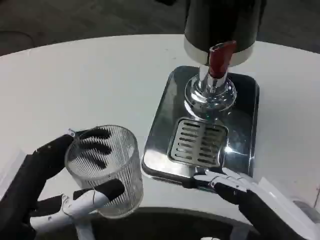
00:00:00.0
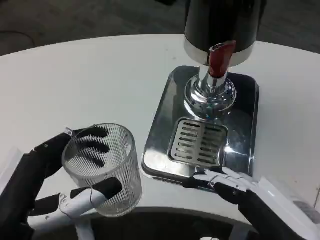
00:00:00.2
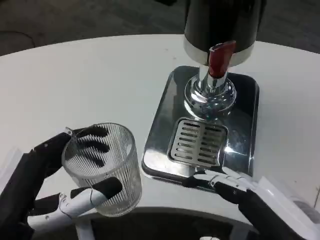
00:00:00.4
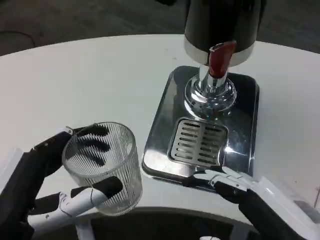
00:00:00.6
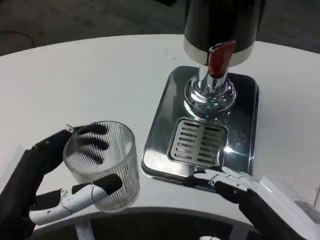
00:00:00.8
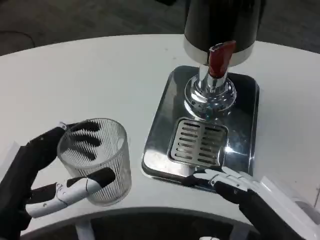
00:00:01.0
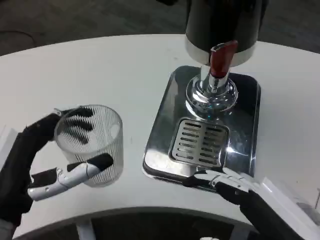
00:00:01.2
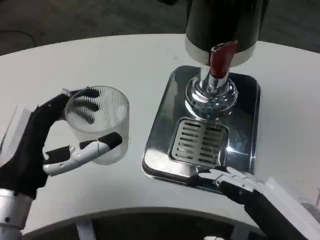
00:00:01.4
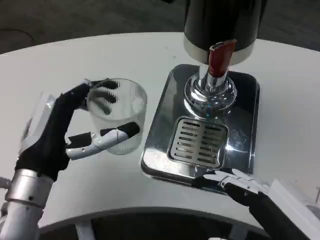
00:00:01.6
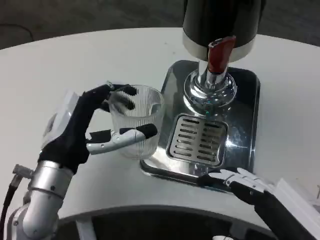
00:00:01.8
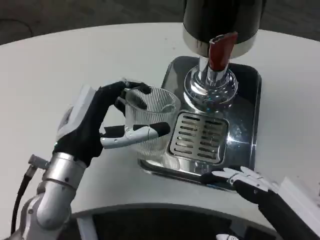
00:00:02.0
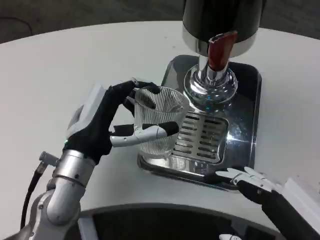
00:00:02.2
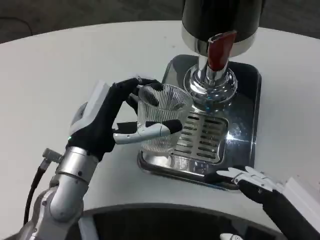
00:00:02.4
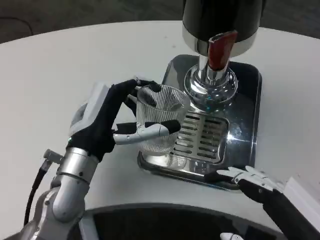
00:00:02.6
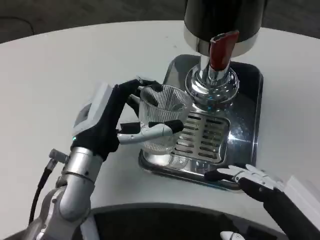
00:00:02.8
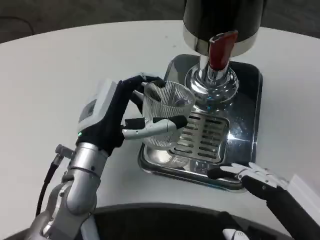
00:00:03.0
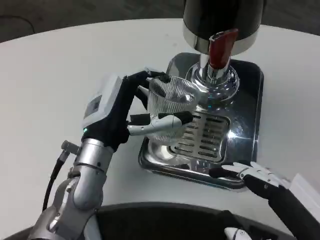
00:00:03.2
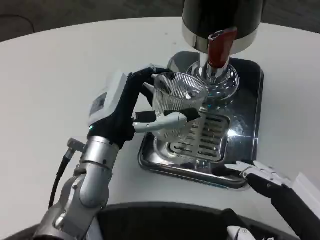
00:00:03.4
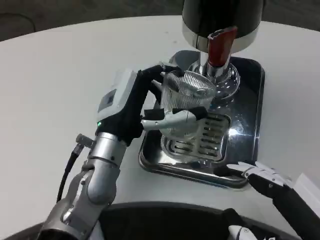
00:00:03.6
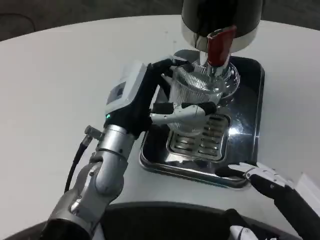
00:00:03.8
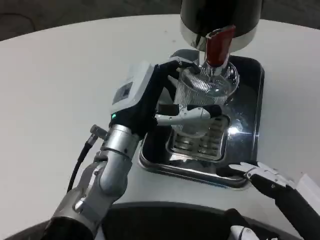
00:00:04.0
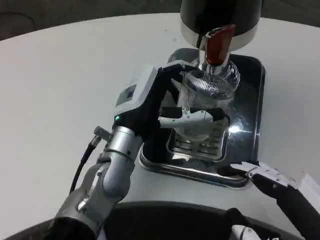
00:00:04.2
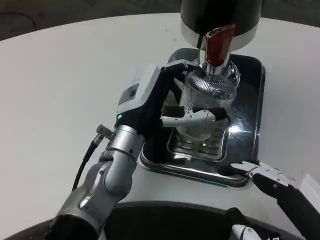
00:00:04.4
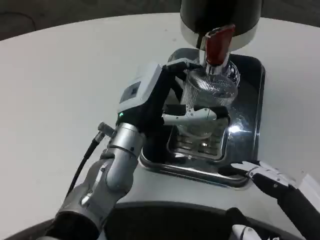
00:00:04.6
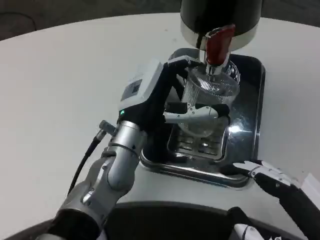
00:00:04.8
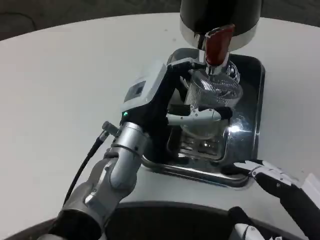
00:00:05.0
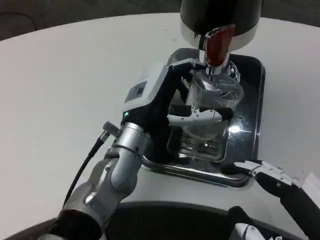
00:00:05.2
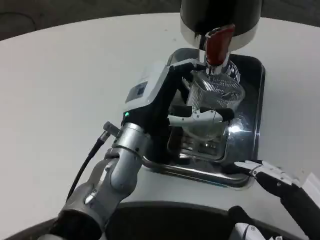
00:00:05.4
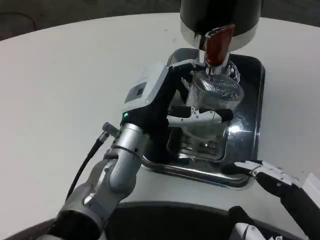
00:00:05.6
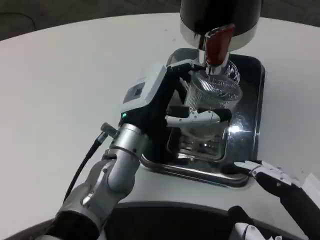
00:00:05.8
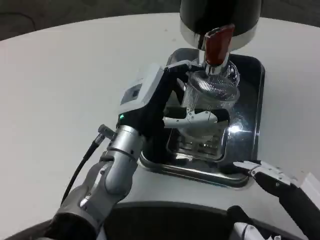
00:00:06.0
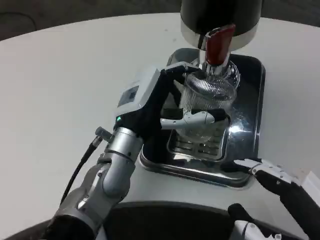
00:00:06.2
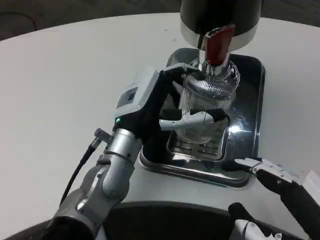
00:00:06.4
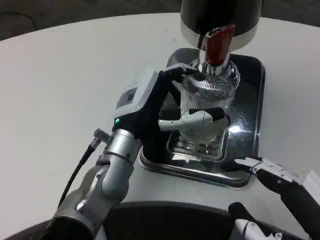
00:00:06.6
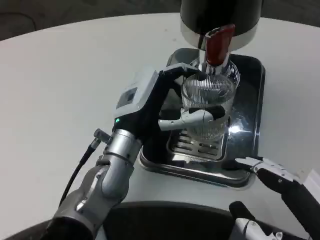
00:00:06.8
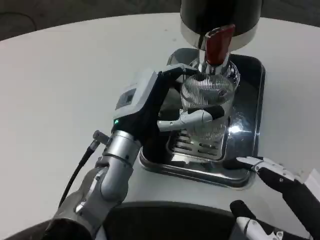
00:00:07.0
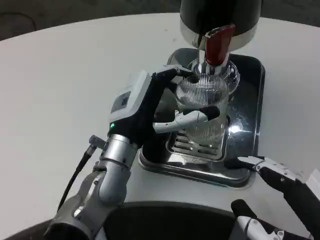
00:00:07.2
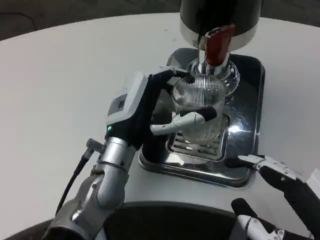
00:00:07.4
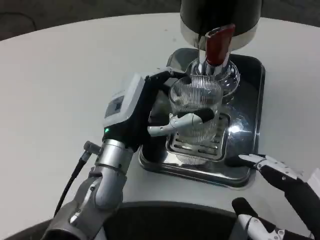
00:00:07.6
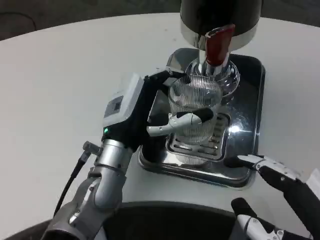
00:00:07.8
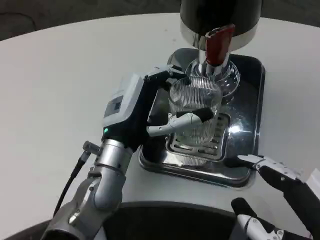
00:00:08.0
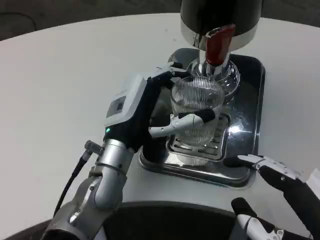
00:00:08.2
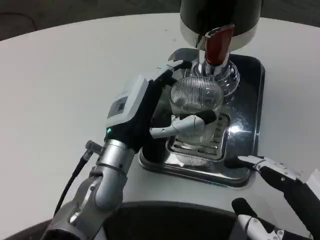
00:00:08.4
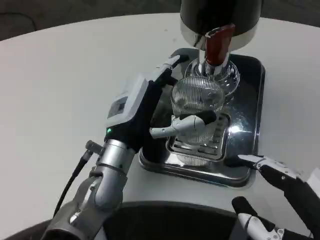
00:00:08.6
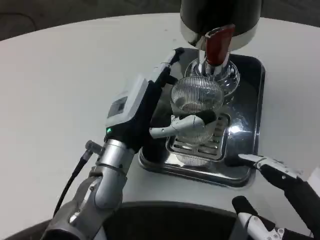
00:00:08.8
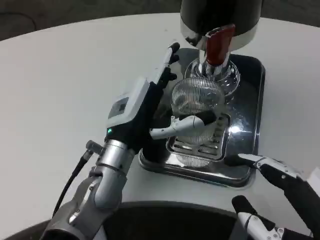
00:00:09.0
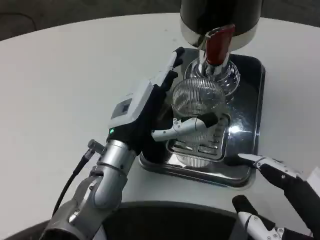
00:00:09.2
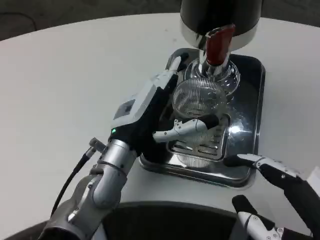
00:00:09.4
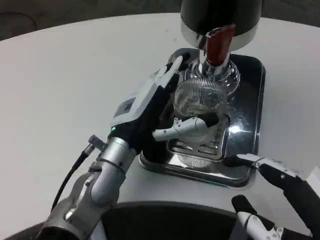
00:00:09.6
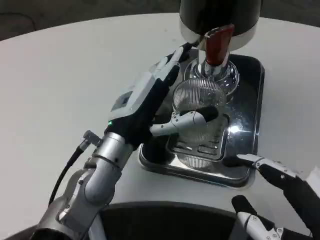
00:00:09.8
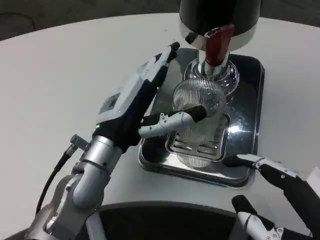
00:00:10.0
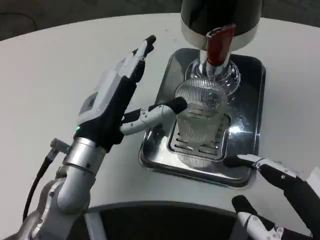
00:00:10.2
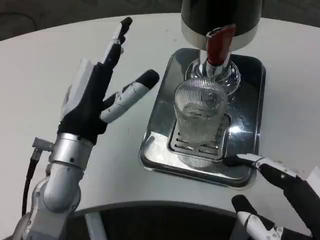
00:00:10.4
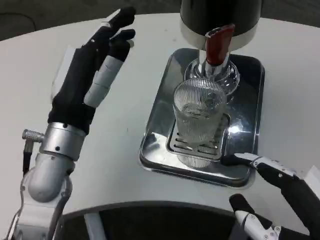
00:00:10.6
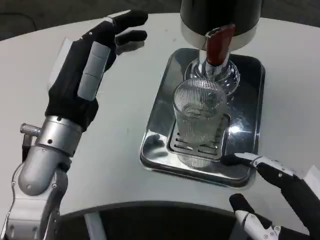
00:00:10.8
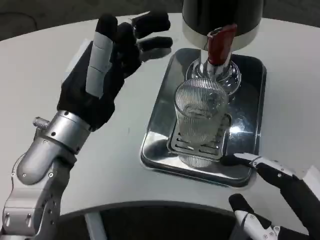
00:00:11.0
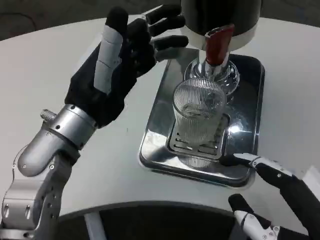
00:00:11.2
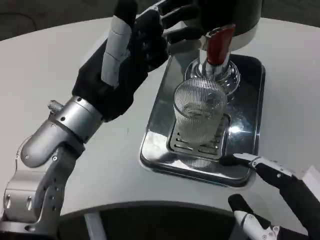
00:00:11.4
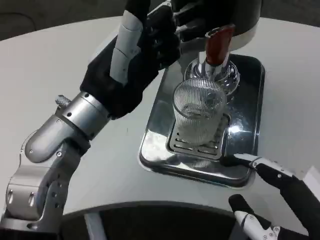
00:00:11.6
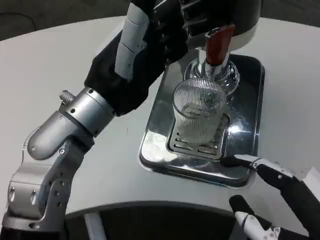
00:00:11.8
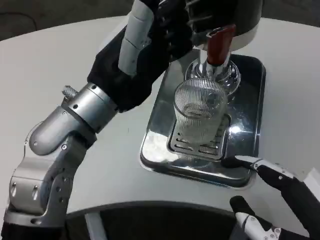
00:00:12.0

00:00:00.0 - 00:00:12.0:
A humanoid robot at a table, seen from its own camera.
Task of the whole recording: Grasp the cup under the faucet to collect the drink, then remove the cup.
00:00:00.0 - 00:00:01.6: The left hand heads forward, covering approximately 10 cm.
00:00:01.6 - 00:00:03.0: The left hand shifts approximately 10 cm forward and to the right.
00:00:03.0 - 00:00:04.4: The left hand moves approximately 5 cm.
00:00:04.4 - 00:00:06.0: Both hands stay put.
00:00:06.0 - 00:00:07.6: The hands make only small movements.
00:00:07.6 - 00:00:09.0: Both hands stay put.
00:00:09.0 - 00:00:10.4: The left hand moves approximately 5 cm.
00:00:10.4 - 00:00:12.0: The left hand heads upward, covering some 10 cm.

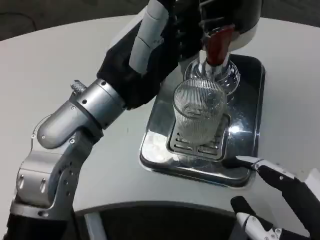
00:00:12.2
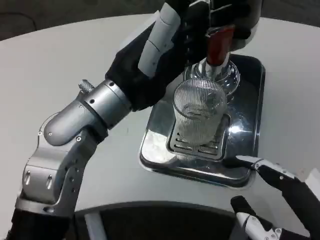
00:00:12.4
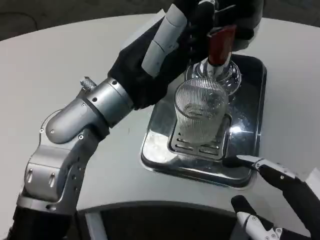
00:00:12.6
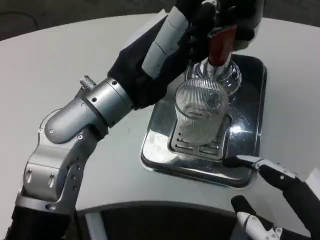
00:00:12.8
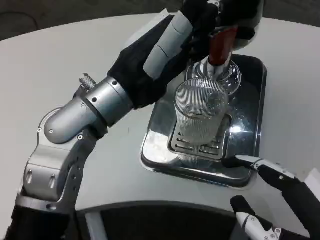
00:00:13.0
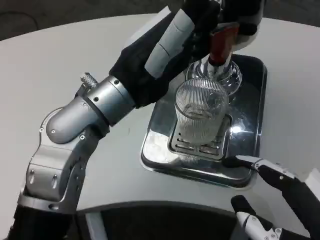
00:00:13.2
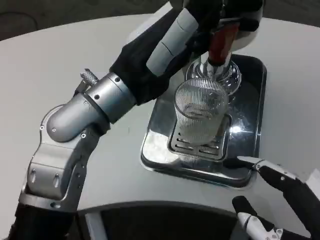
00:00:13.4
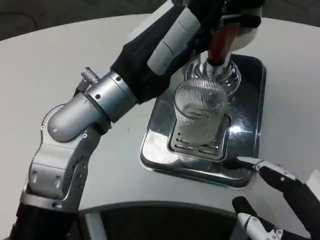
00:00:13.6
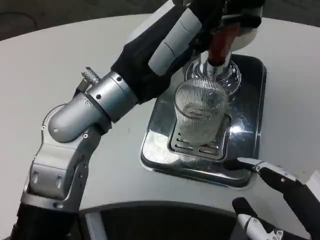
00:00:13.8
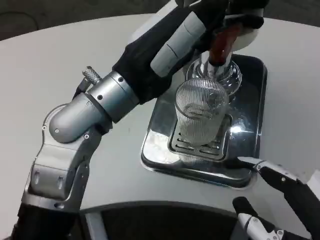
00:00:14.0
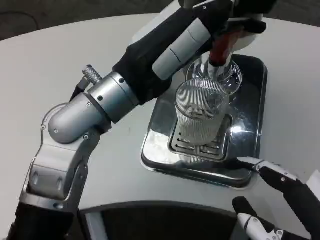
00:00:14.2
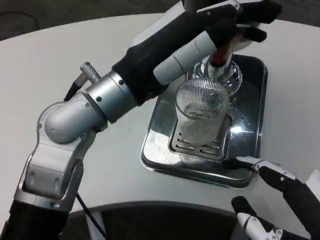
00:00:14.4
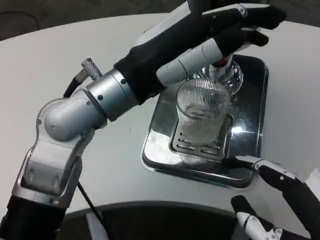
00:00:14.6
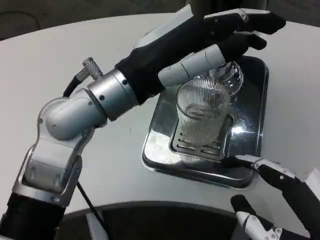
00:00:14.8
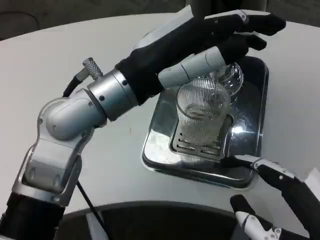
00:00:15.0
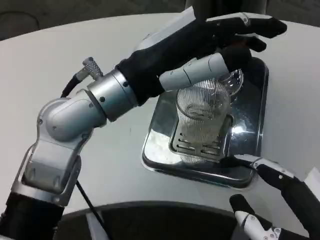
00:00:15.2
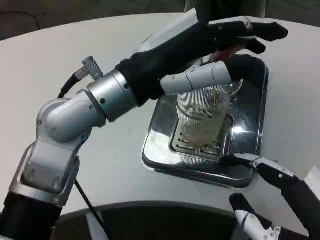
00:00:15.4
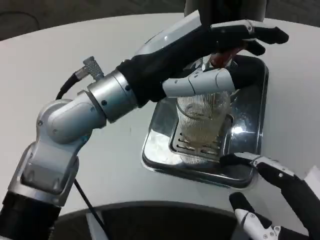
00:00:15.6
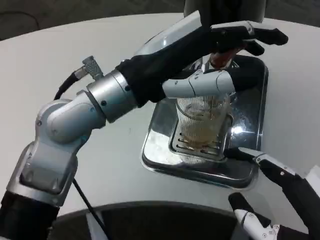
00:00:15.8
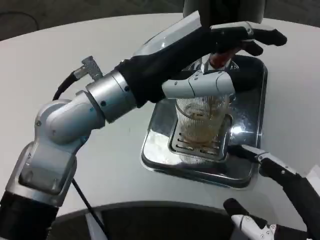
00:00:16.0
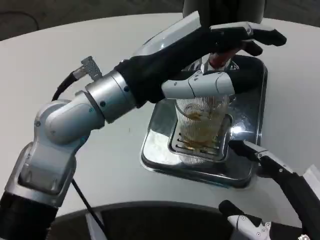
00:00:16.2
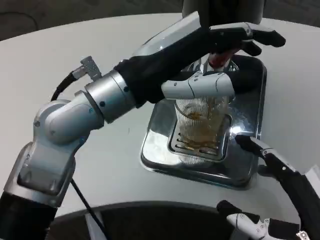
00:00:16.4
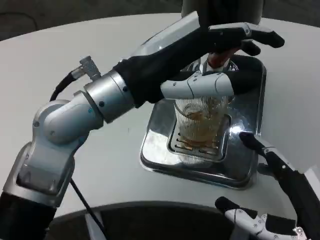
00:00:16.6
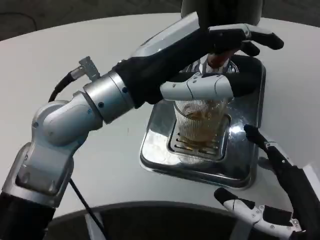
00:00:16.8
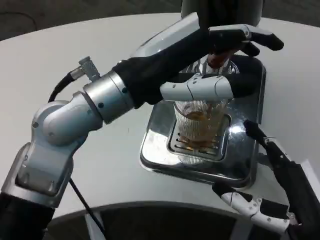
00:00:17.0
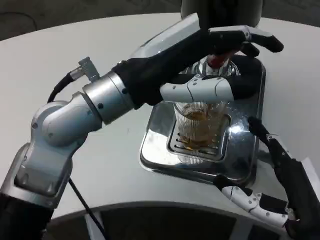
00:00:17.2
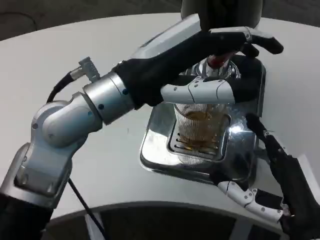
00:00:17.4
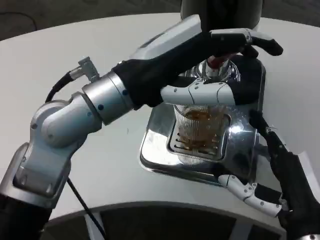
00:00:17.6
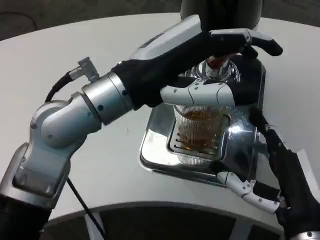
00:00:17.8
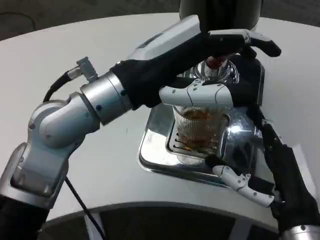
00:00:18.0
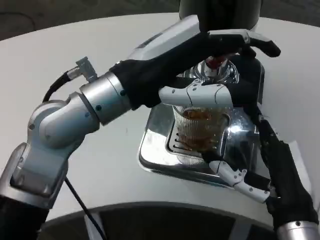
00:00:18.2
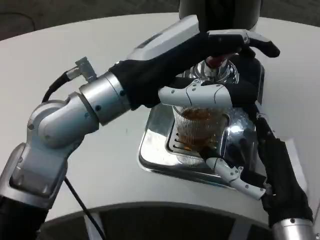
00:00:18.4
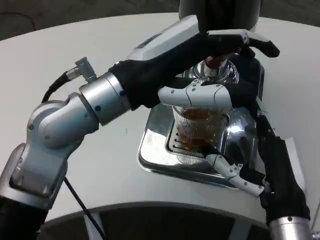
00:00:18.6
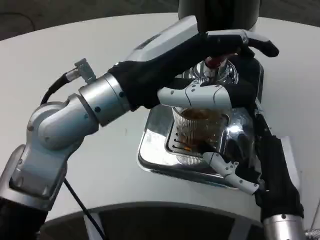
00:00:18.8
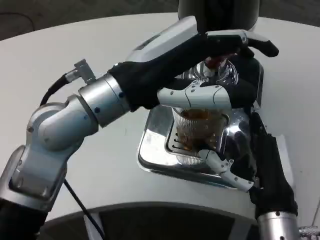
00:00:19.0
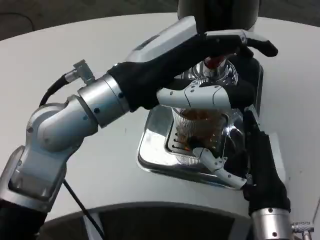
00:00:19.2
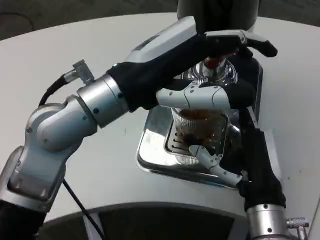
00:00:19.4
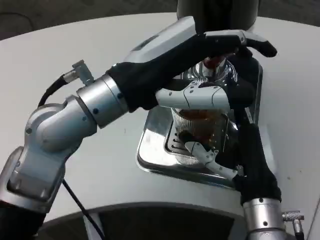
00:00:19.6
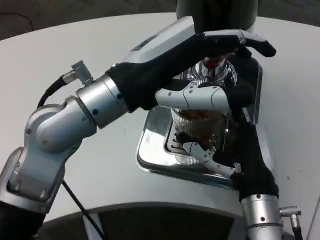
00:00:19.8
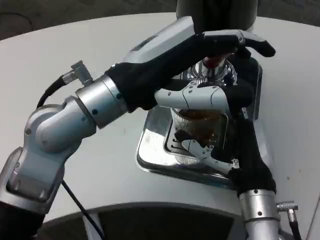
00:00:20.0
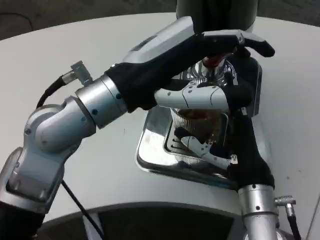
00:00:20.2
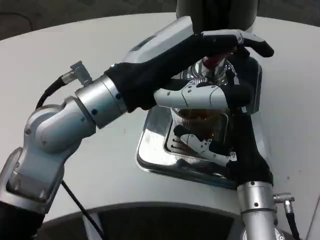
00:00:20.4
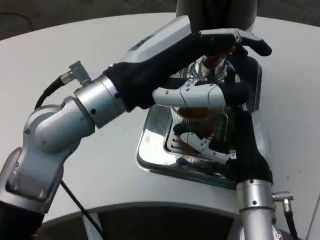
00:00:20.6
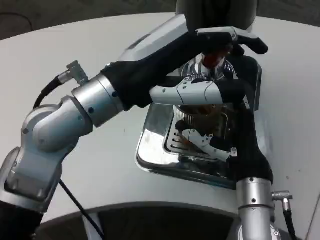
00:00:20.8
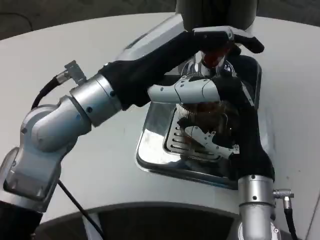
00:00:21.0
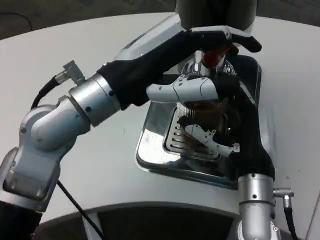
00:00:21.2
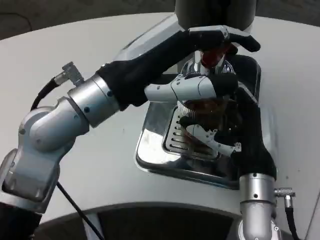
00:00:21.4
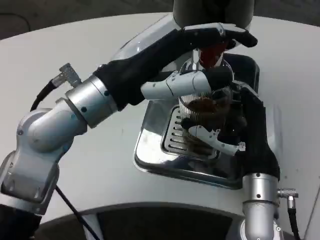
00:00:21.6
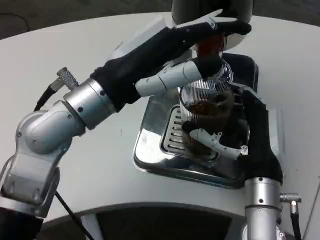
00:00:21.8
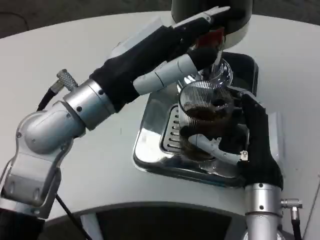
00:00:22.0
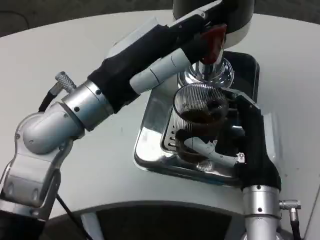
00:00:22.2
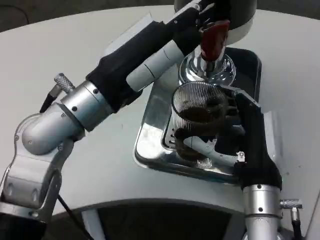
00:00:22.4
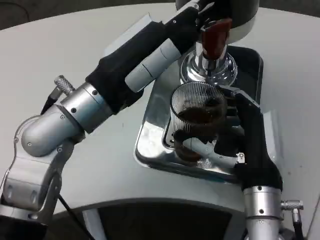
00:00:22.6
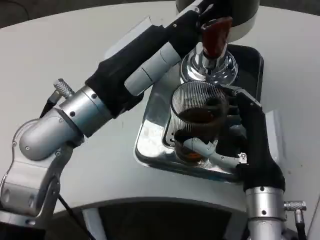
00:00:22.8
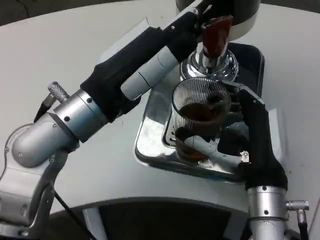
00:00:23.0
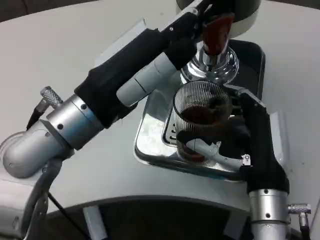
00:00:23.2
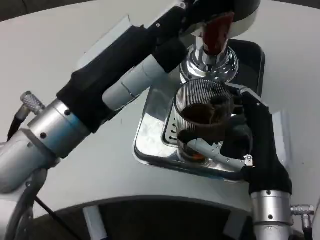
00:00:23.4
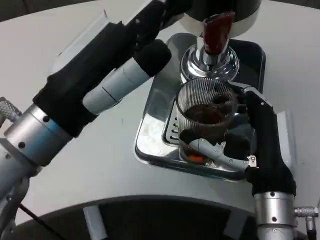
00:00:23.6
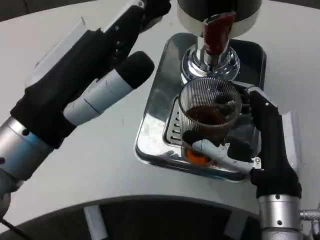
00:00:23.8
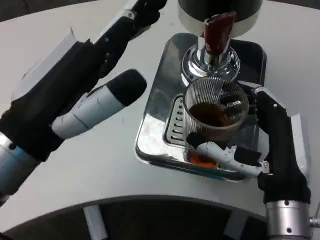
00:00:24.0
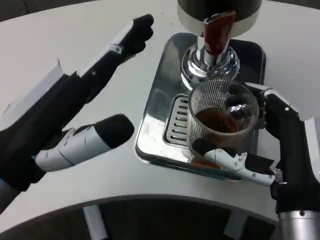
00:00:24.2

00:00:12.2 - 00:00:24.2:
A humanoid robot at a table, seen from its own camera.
Task of the whole recording: Grasp the cup under the faucet to collect the drink, then remove the cup.
00:00:15.2 - 00:00:16.6: The right hand shifts by about 5 cm.
00:00:16.6 - 00:00:18.2: The right hand moves forward, approximately 5 cm.
00:00:18.2 - 00:00:19.8: The right hand travels forward by about 5 cm.
00:00:22.6 - 00:00:24.2: The left hand shifts roughly 15 cm backward and to the left. The right hand travels backward by approximately 5 cm.
